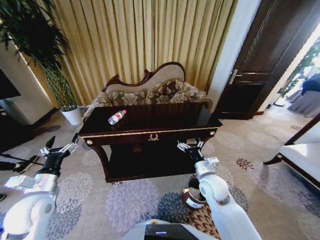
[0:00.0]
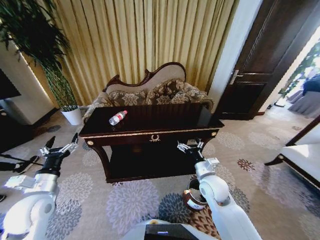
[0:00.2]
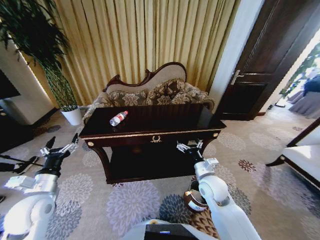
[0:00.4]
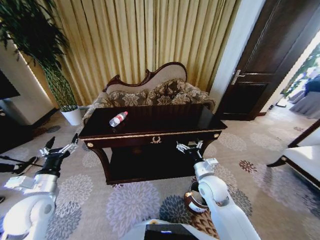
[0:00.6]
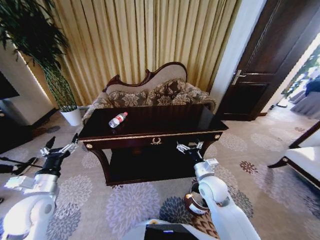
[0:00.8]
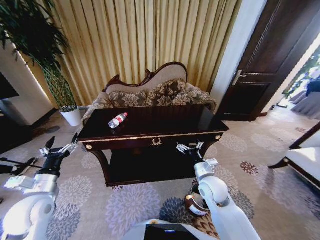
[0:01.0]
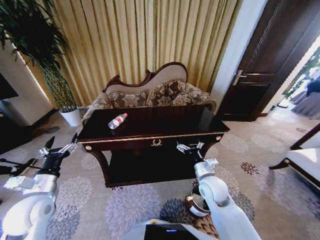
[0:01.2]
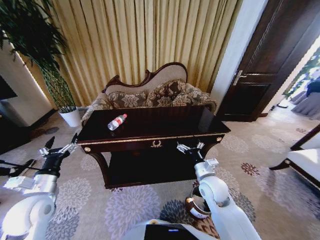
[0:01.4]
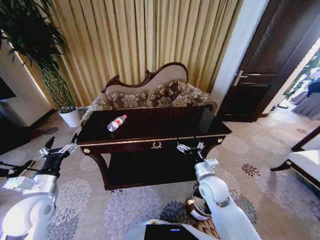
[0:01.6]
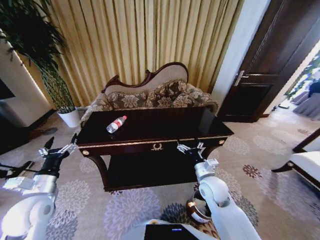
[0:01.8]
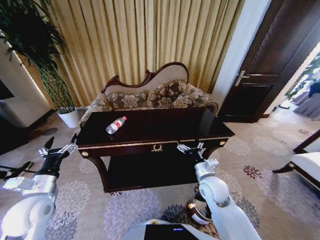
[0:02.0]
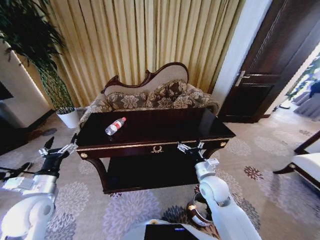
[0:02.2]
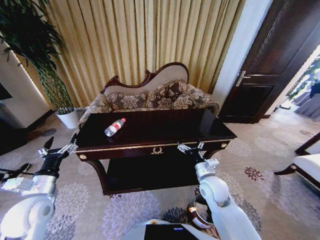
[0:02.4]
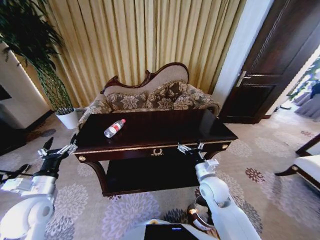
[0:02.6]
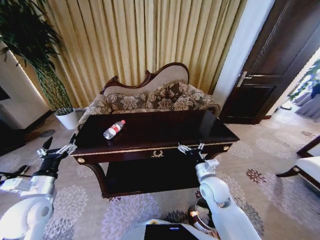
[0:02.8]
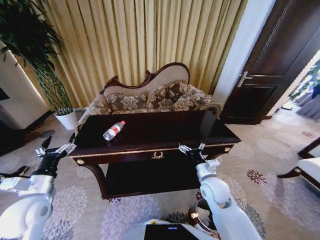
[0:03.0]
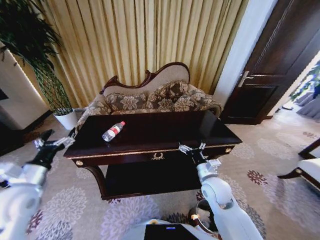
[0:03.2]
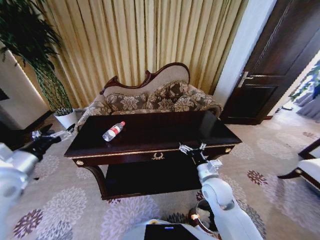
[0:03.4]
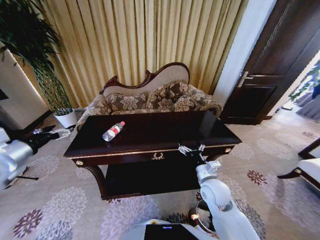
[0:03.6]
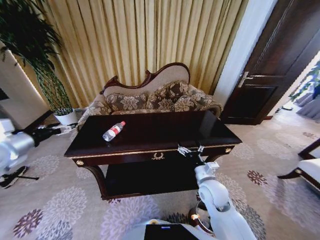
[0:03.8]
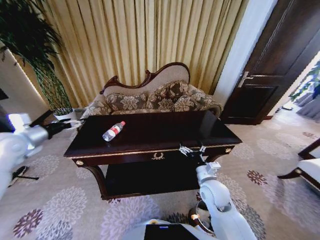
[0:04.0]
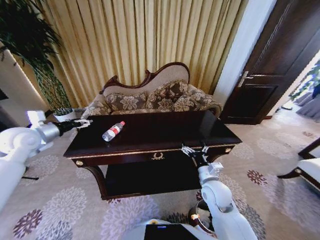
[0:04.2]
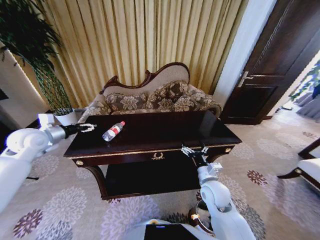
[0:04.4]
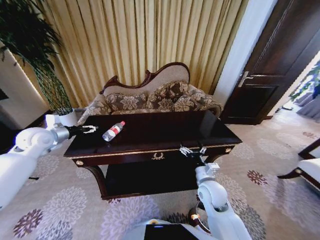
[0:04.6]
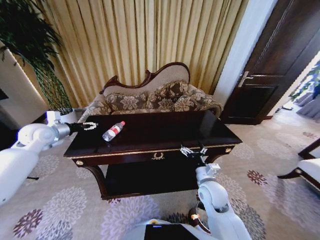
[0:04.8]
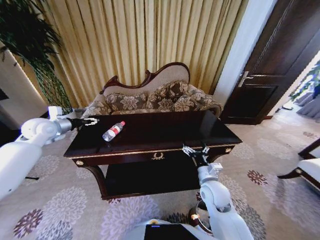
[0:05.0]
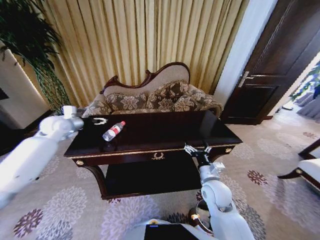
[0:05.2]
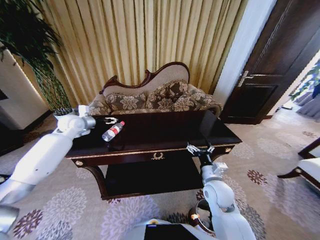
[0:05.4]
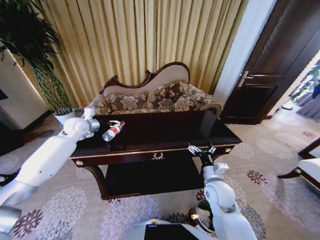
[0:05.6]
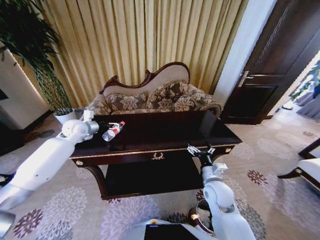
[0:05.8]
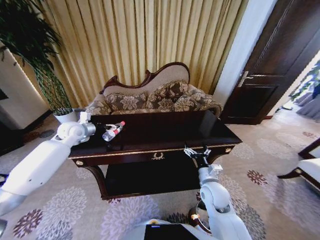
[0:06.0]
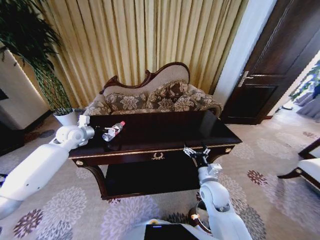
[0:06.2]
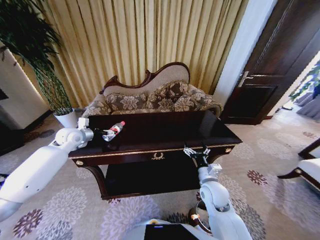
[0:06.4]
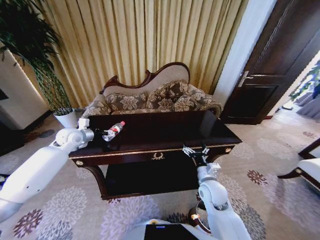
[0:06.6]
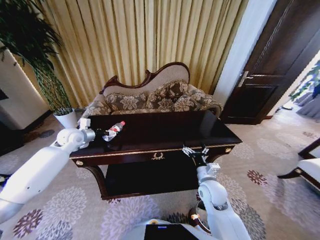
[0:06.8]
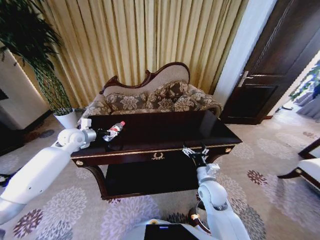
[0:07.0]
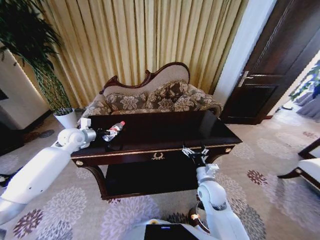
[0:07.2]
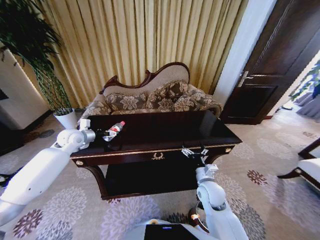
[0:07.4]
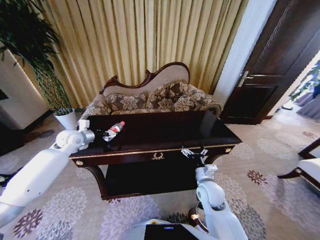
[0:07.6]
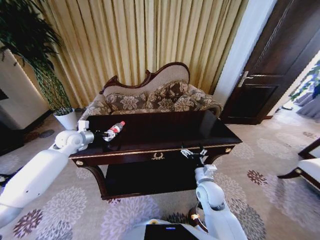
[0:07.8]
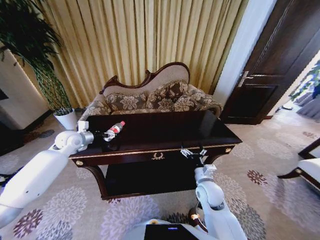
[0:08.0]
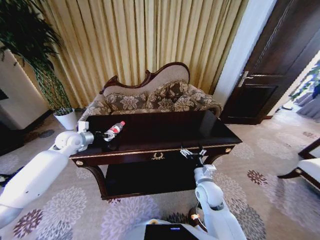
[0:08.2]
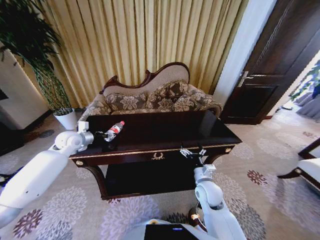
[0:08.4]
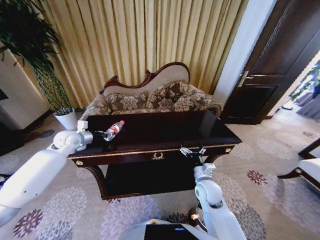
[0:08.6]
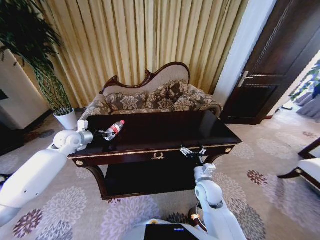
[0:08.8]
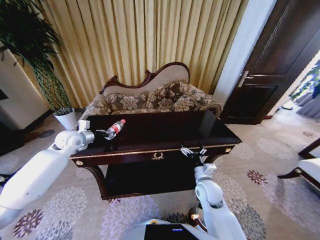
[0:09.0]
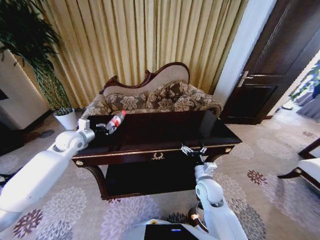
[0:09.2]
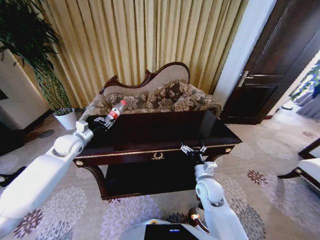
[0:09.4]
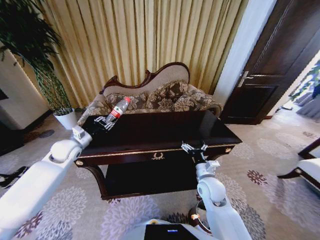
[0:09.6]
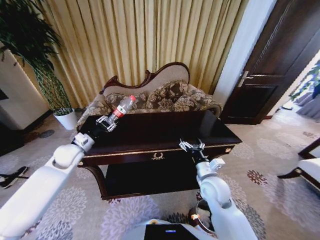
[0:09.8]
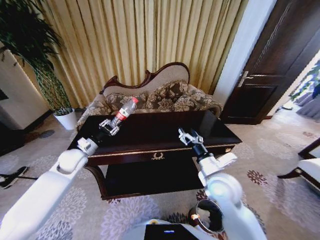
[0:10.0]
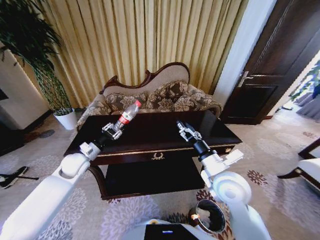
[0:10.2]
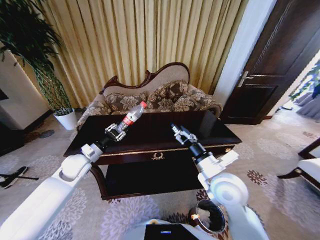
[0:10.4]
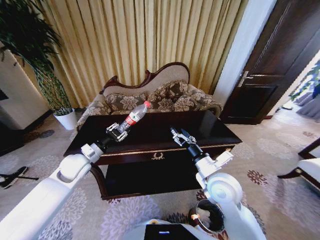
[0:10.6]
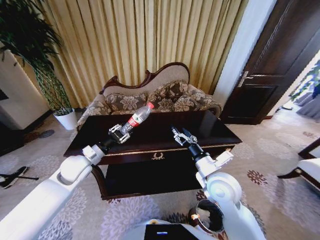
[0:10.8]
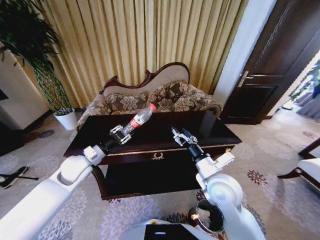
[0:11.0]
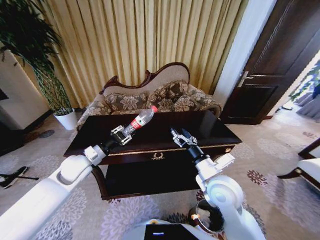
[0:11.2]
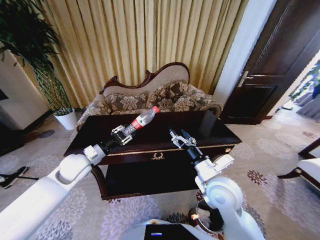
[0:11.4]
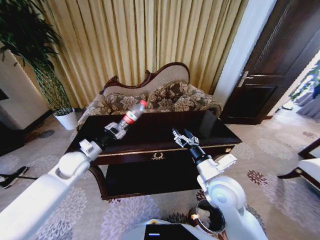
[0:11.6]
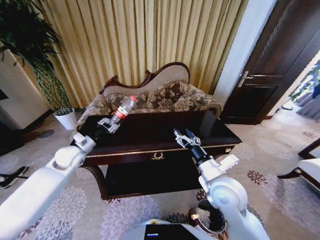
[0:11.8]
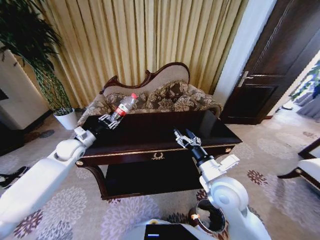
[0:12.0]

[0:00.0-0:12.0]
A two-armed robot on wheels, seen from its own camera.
Task of the whole recording: Move to the front of the table and place the trash on the table into the trash bin.
0:03.0 to 0:04.4: The left gripper is displaced forward and upward by approximately 20 cm.
0:04.4 to 0:06.0: The left gripper is displaced forward and to the right by roughly 10 cm.
0:06.0 to 0:07.6: The grippers move only a little.
0:07.6 to 0:09.0: The left gripper closes.
0:09.0 to 0:10.4: The right gripper goes some 15 cm upward. The left gripper is displaced backward, downward and to the right by approximately 10 cm.
0:10.4 to 0:12.0: The left gripper travels forward by about 5 cm.

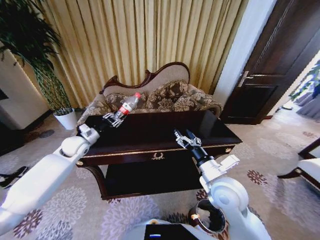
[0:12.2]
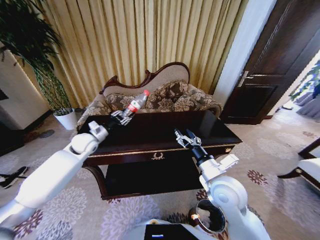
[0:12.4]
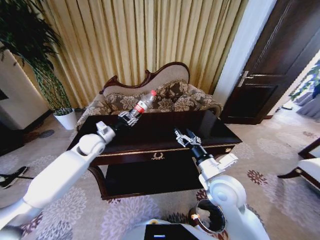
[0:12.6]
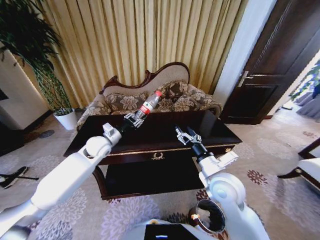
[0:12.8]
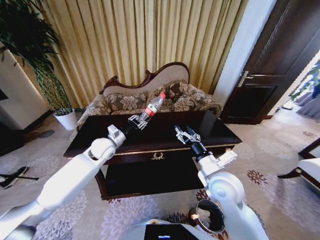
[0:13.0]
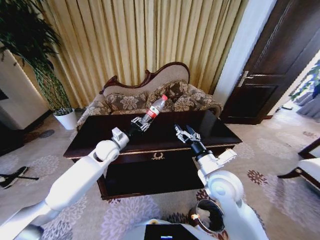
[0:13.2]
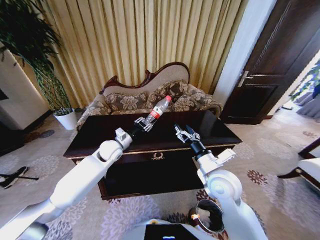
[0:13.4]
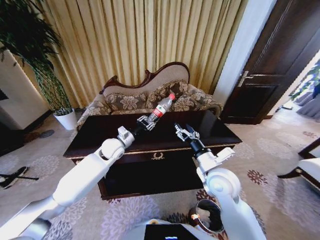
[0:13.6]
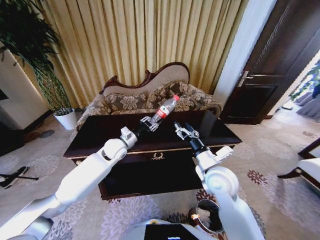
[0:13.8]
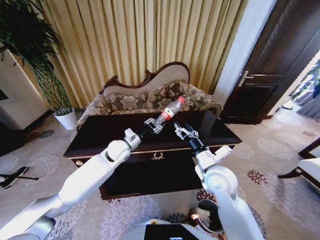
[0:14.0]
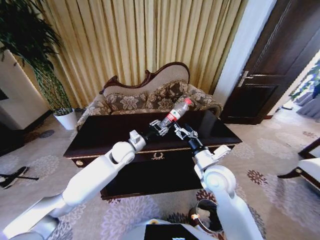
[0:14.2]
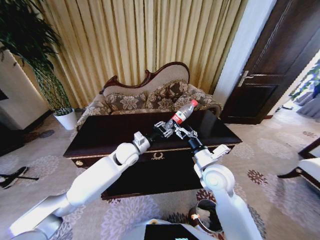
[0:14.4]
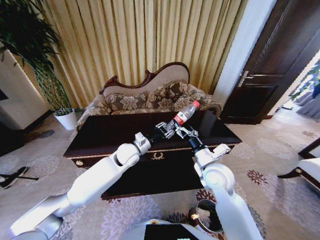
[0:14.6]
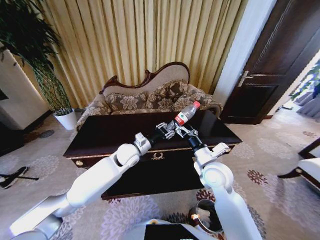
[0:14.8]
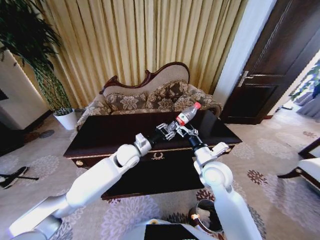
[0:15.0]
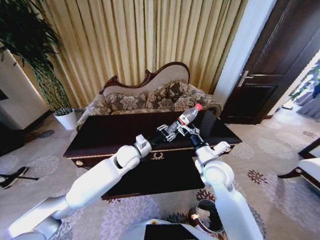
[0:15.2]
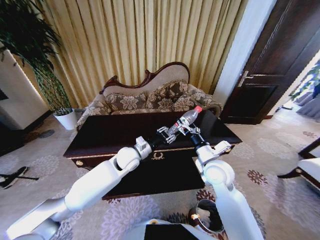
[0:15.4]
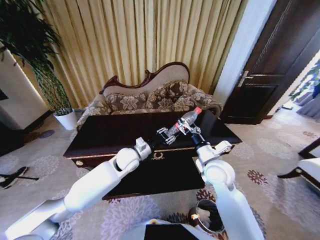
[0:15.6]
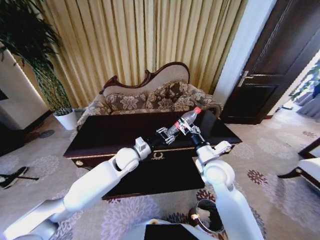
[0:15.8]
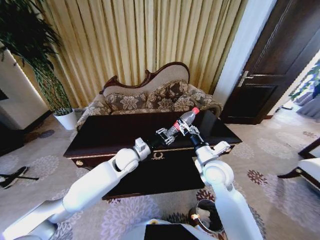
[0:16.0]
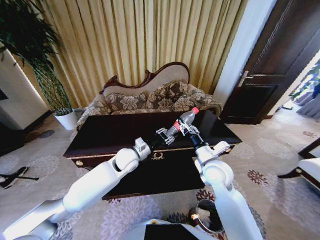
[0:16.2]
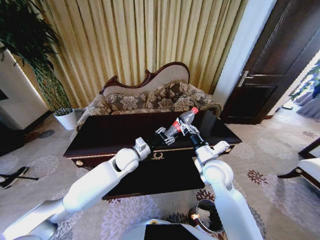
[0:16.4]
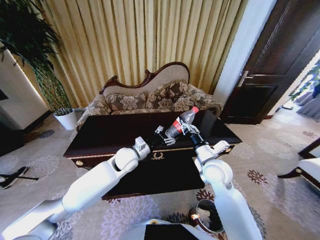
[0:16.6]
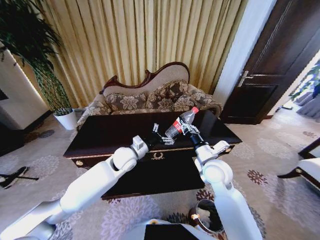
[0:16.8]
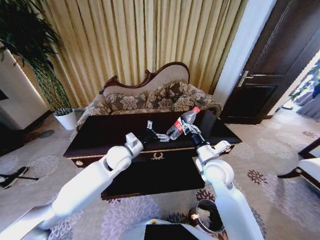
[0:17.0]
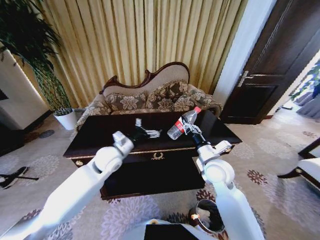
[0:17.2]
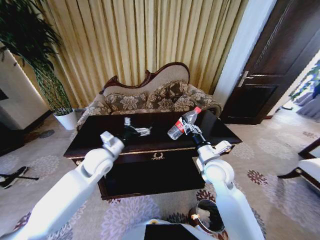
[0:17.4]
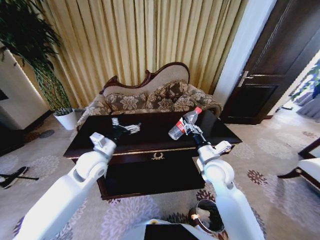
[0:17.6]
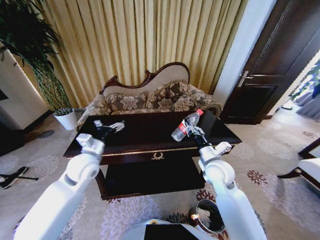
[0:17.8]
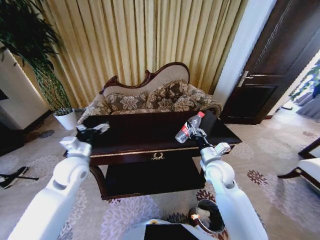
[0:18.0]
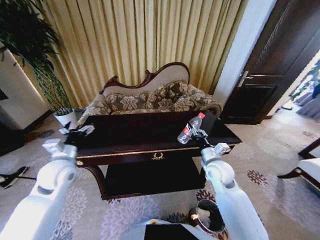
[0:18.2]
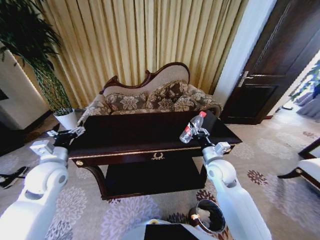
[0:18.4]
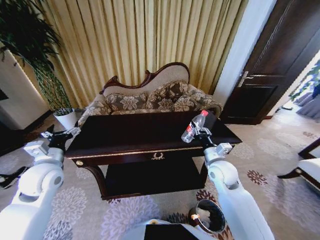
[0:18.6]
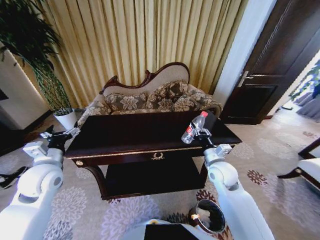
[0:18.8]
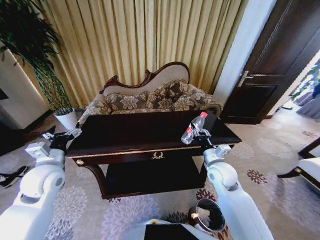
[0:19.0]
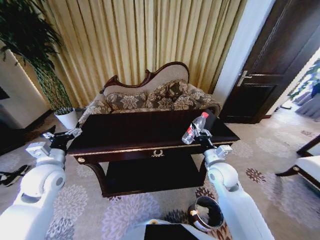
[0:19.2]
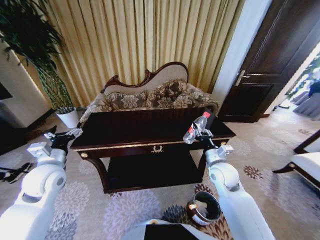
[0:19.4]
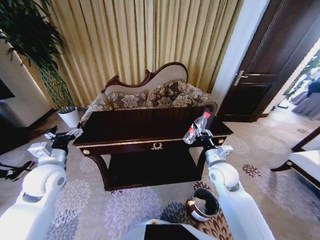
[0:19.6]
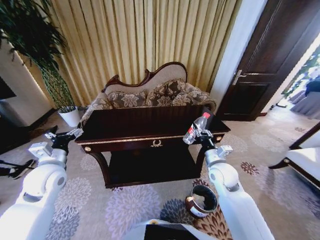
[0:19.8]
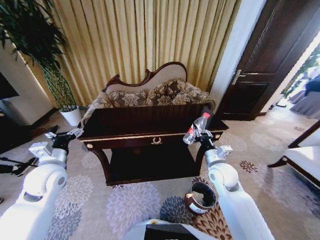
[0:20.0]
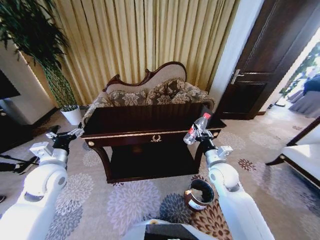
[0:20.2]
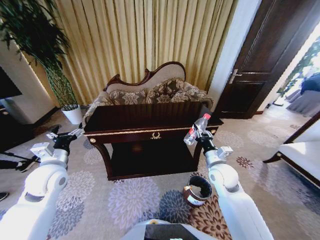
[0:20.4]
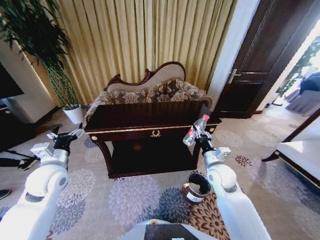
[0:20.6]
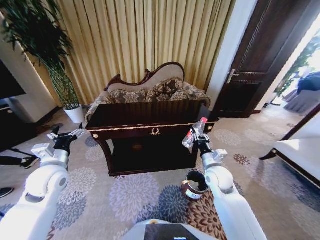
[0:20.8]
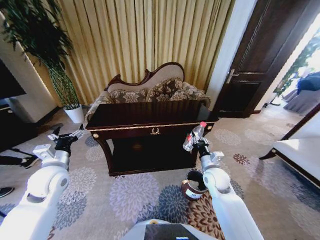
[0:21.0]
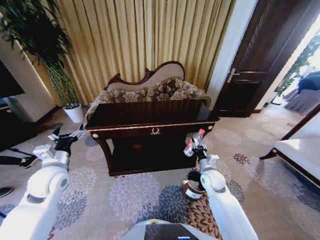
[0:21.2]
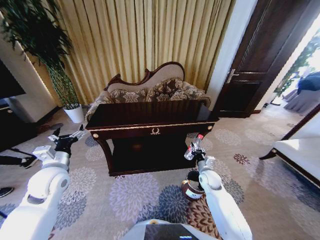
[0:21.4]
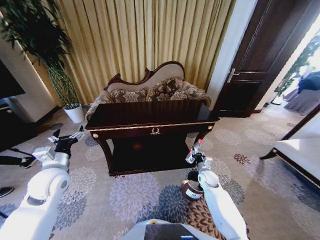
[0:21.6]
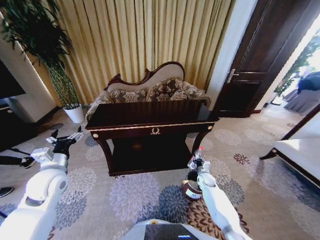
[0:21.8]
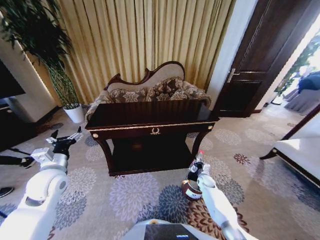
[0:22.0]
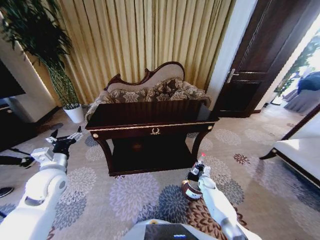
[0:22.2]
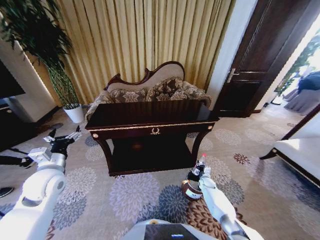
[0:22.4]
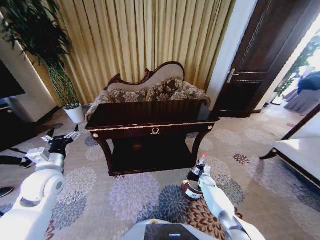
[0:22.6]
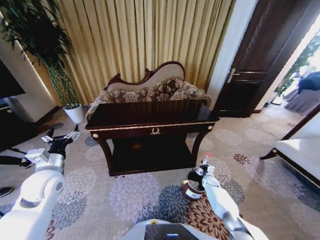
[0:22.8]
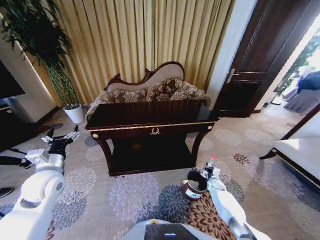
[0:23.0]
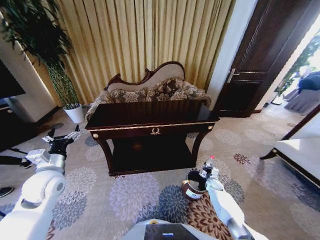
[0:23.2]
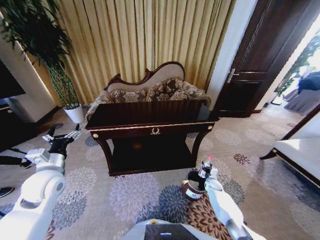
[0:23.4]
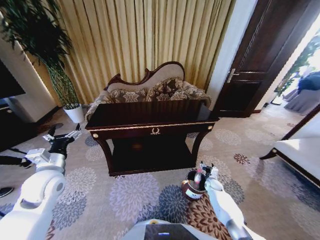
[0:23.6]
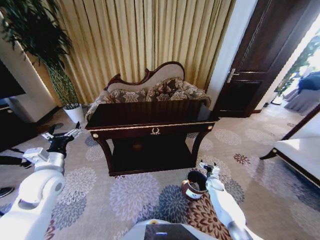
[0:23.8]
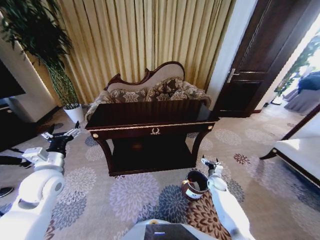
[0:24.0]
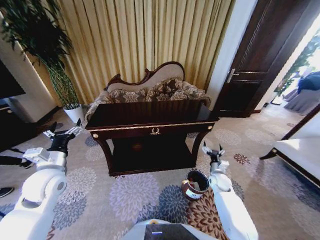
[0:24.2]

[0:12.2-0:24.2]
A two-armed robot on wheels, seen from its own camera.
Task of the whole recording: Move to the front of the table and place the trash on the table into the trash bin.
0:12.2 to 0:13.8: The left gripper heads to the right, covering about 20 cm.
0:13.8 to 0:15.2: The left gripper is displaced to the right by approximately 5 cm.
0:15.2 to 0:16.6: The left gripper opens up, while the right gripper closes.
0:16.6 to 0:18.2: The left gripper is displaced to the left by about 20 cm, and opens up.
0:19.8 to 0:21.2: The right gripper travels downward by approximately 10 cm.
0:21.2 to 0:22.6: The right gripper goes about 25 cm downward.
0:22.6 to 0:24.2: The right gripper shifts some 15 cm upward, and opens its fingers.
